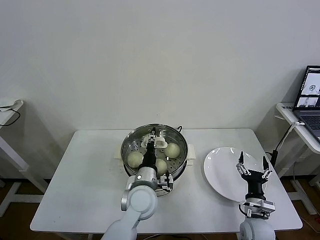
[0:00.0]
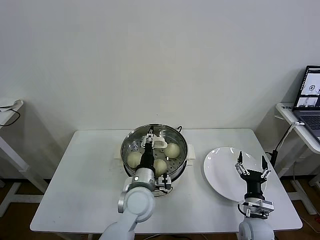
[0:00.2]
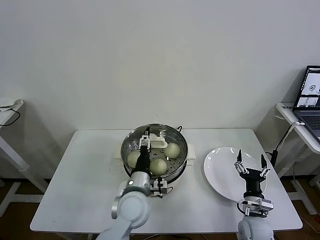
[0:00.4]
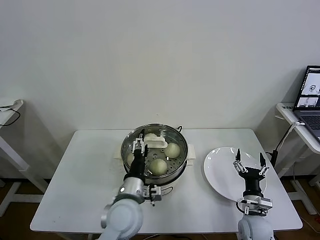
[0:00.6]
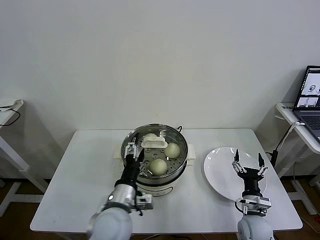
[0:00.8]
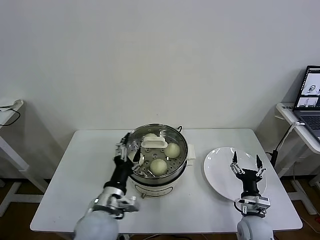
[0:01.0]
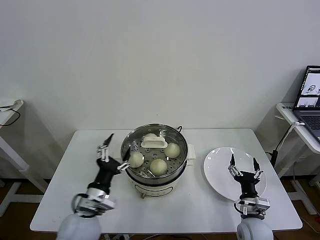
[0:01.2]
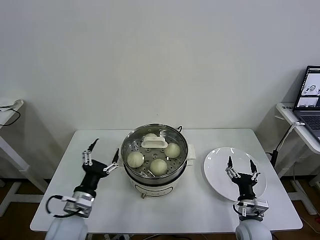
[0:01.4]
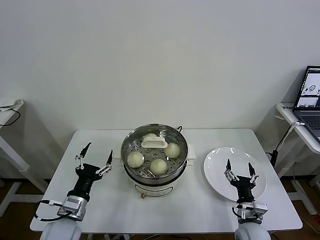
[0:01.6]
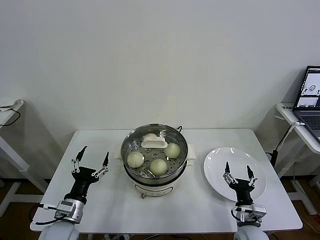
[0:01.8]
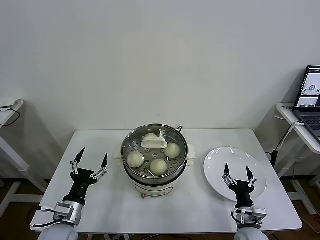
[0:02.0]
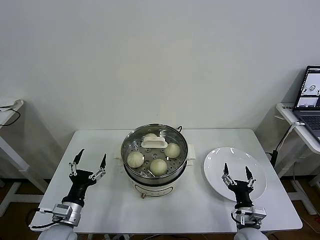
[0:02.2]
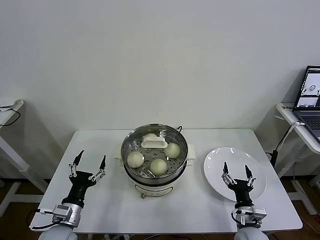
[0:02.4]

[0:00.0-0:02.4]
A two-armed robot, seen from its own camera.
Task of the whole recording: take steamed baozi put them in steamer then cover it.
0:00.0 to 0:01.2: The left gripper is displaced to the left and backward by about 15 cm, and opens up.
0:01.2 to 0:02.4: The left gripper moves to the left and downward, about 10 cm.
